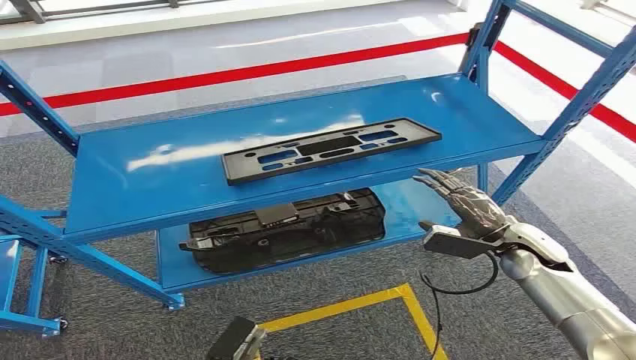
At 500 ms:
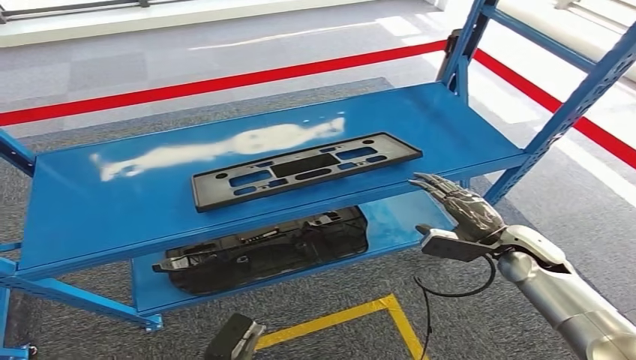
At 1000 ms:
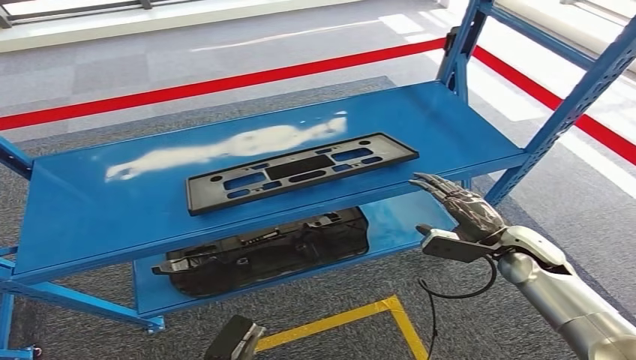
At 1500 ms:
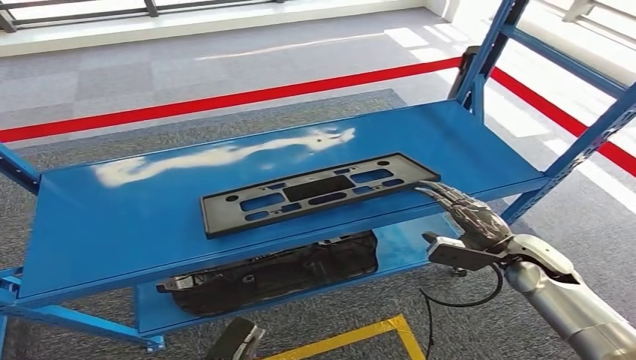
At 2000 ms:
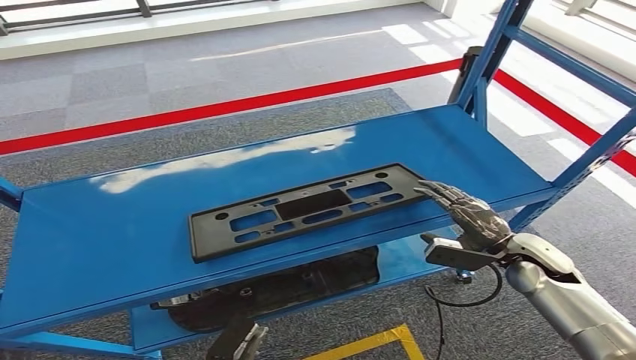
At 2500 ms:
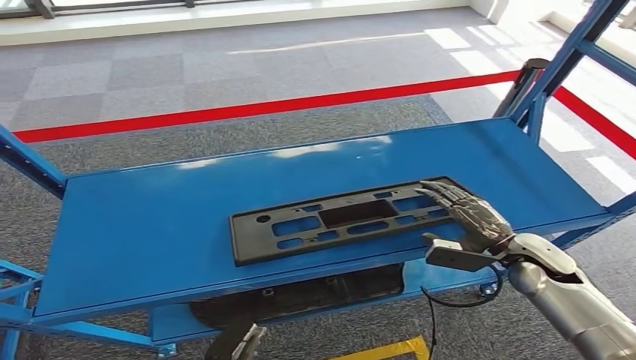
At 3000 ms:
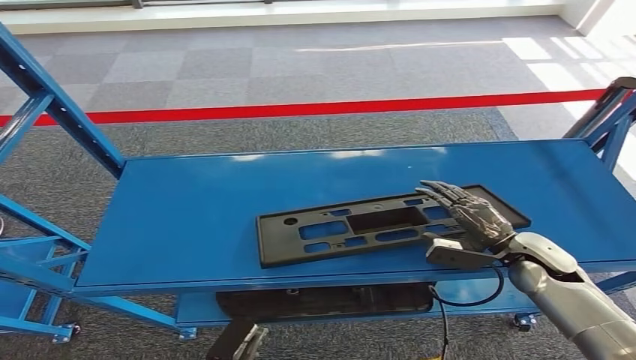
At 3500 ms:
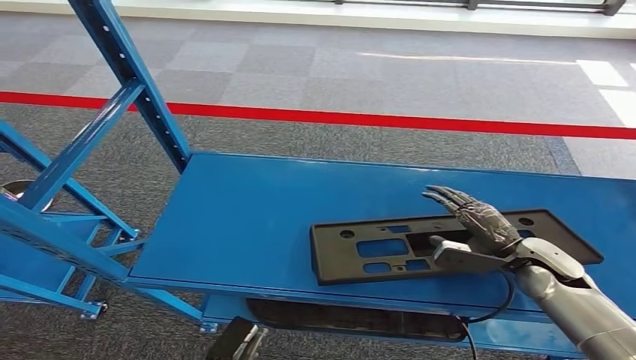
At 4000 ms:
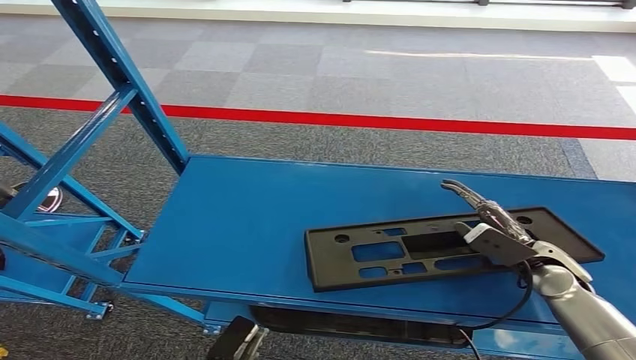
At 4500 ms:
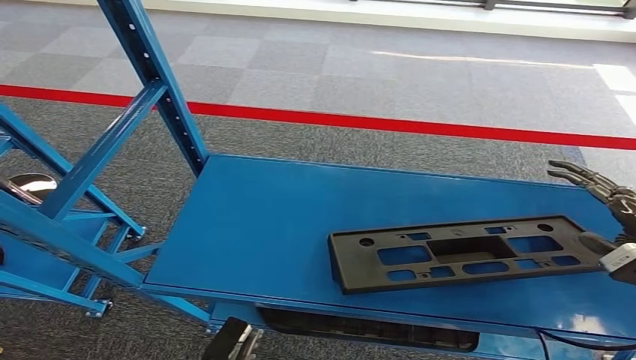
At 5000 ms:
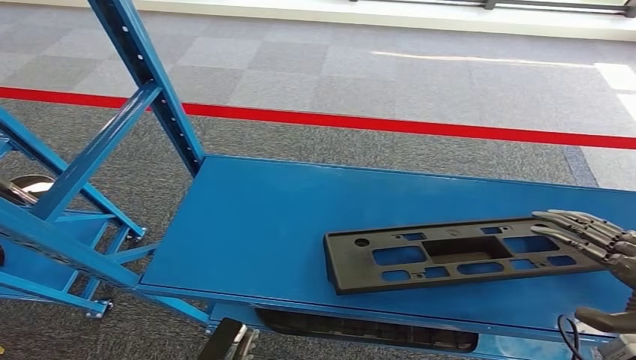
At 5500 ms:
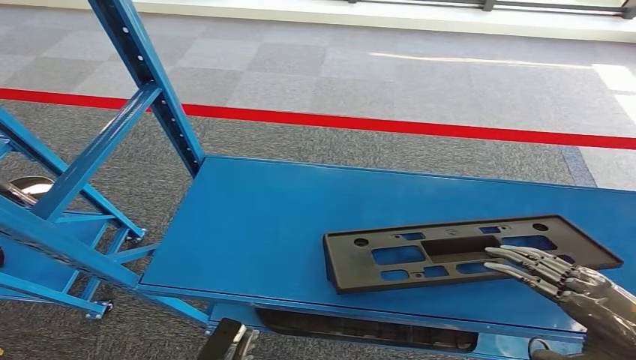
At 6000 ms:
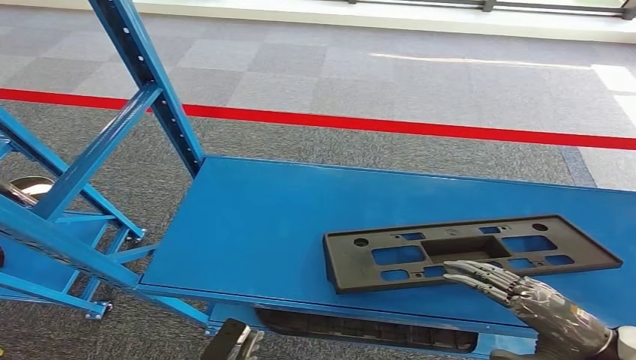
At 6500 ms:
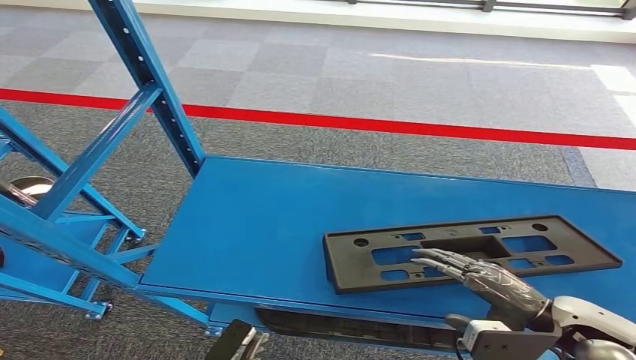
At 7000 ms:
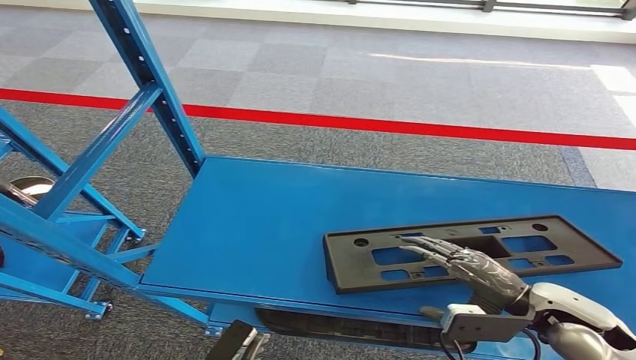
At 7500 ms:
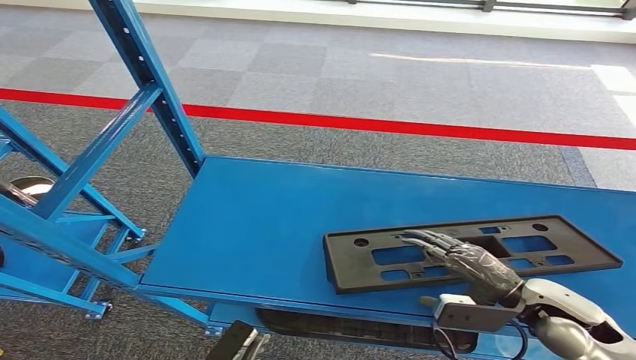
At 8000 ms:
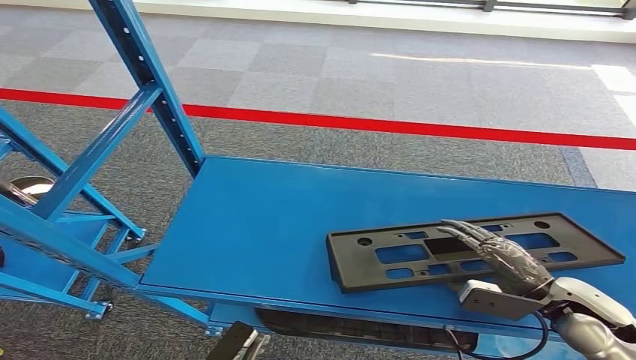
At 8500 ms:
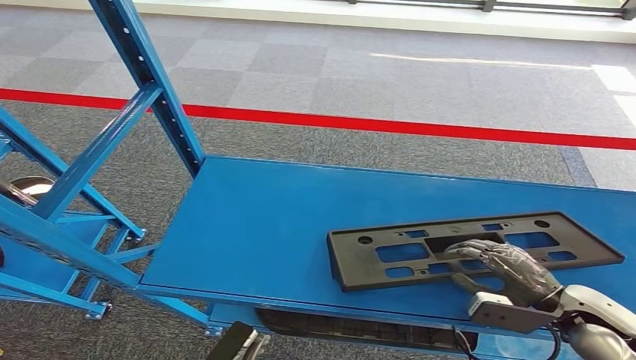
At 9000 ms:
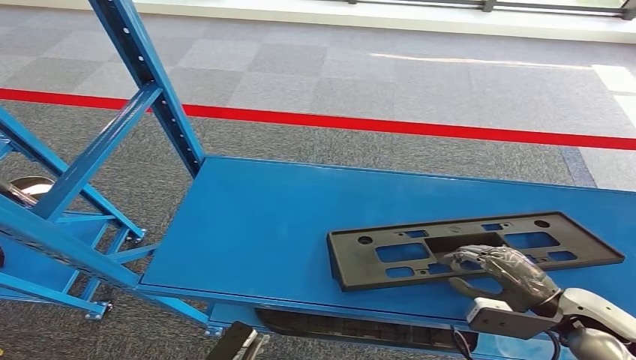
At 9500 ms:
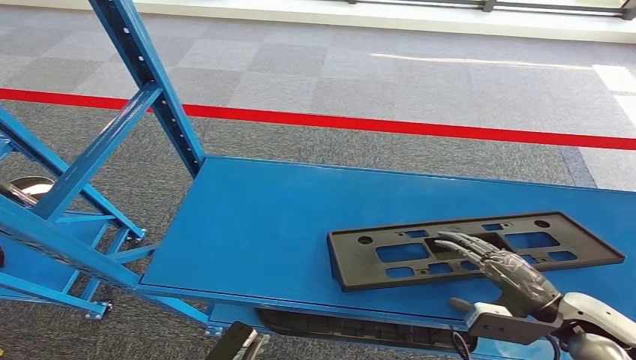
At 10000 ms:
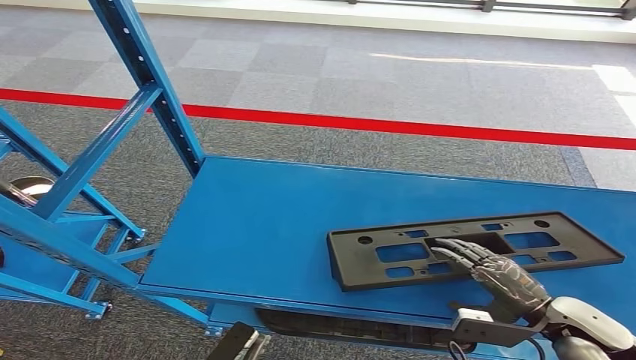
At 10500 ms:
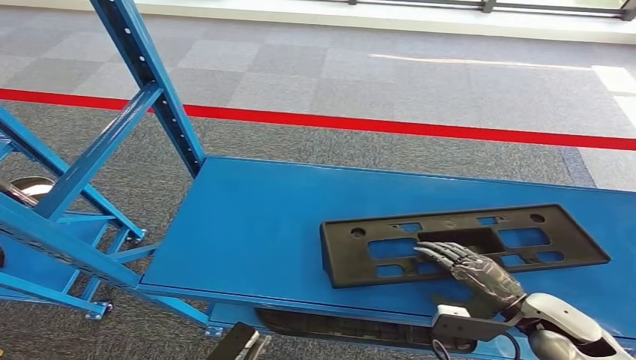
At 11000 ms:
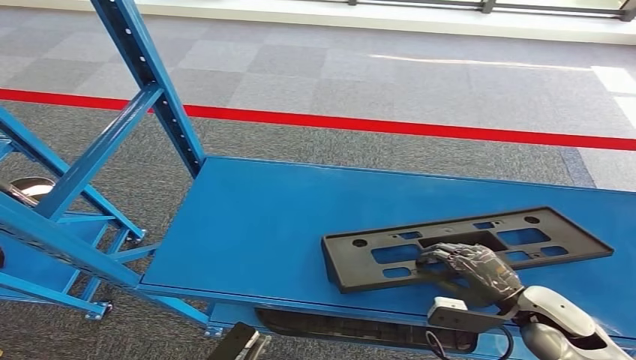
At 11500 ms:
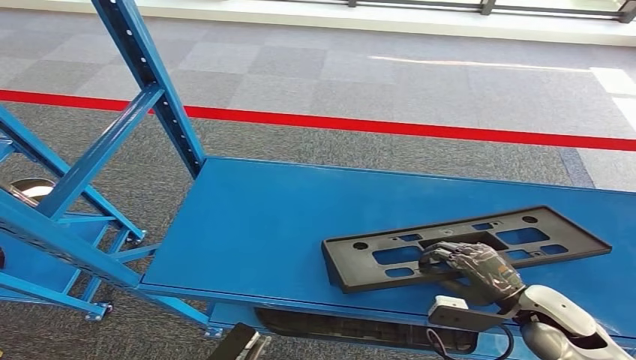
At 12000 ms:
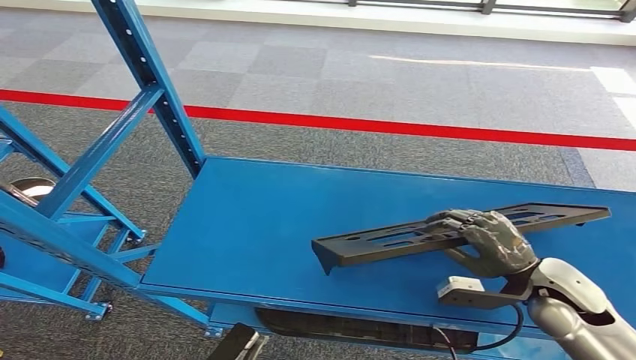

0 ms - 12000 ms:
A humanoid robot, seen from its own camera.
6000 ms - 8000 ms: The right hand moves forward and downward, some 15 cm.
8000 ms - 10000 ms: The hands stay close to where they were, moving slightly.
10000 ms - 12000 ms: The right hand shifts about 5 cm forward.

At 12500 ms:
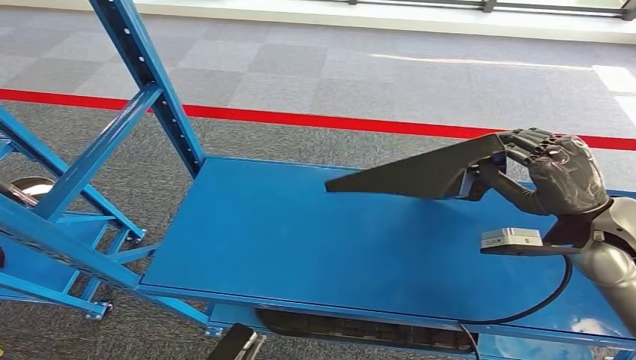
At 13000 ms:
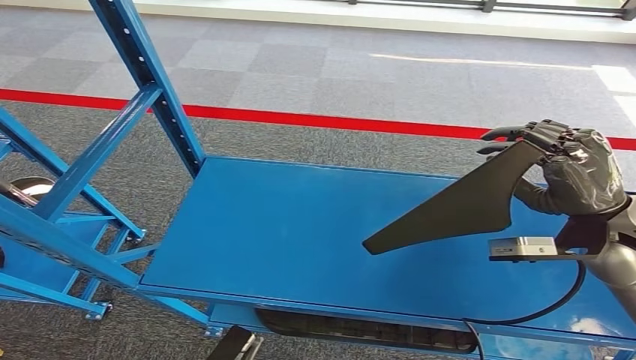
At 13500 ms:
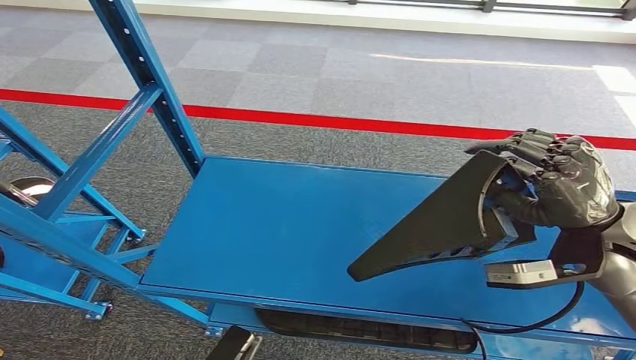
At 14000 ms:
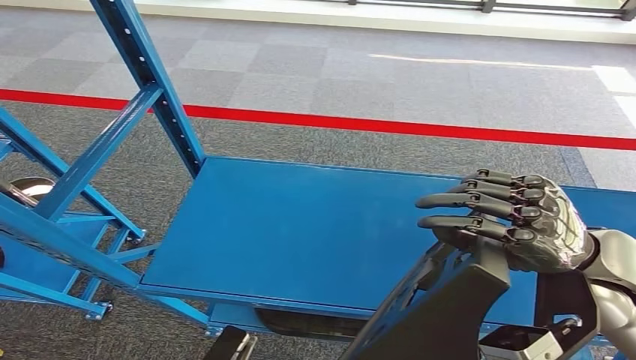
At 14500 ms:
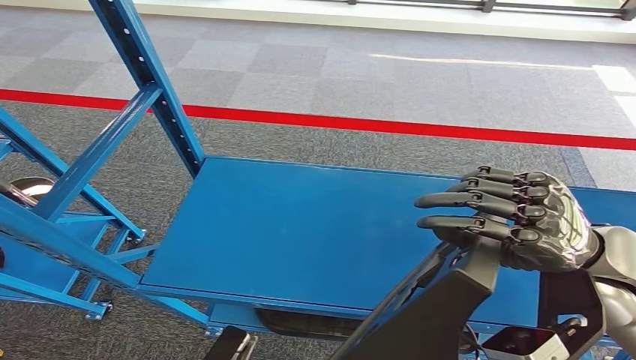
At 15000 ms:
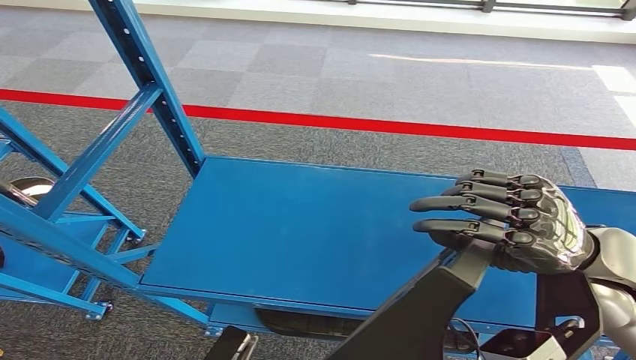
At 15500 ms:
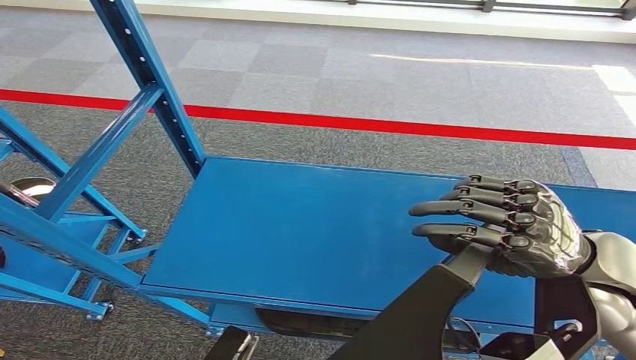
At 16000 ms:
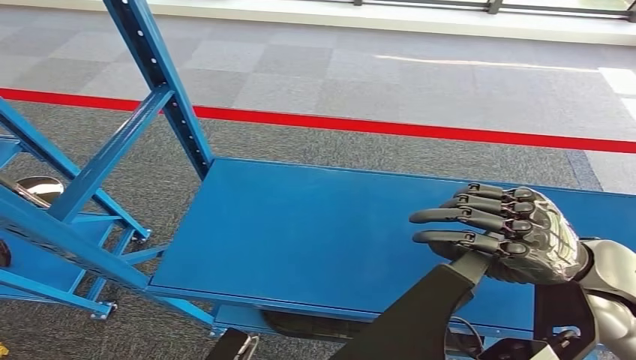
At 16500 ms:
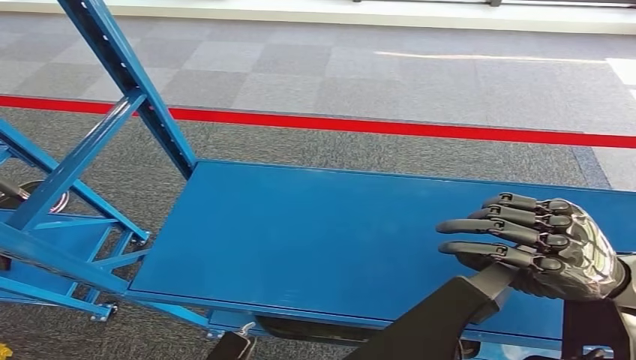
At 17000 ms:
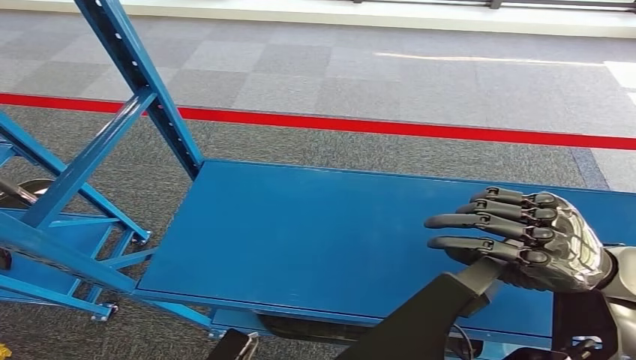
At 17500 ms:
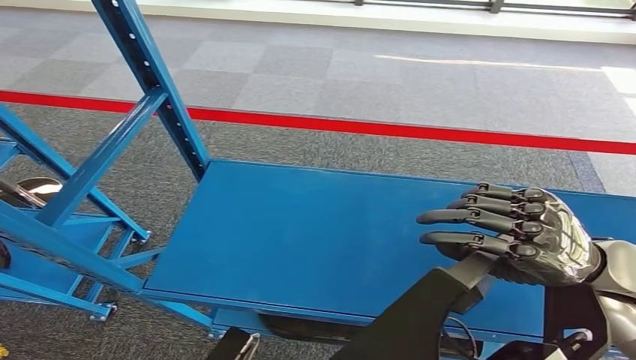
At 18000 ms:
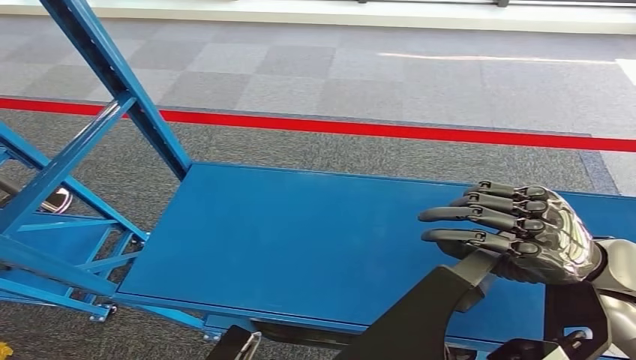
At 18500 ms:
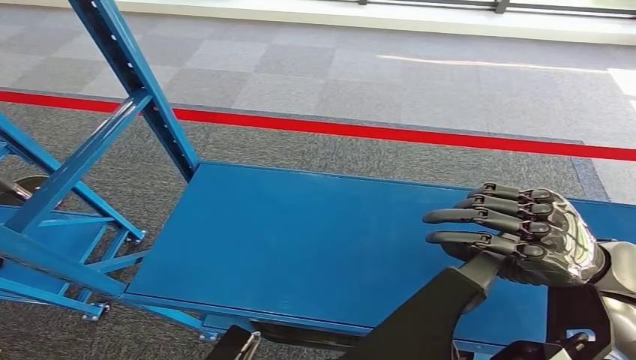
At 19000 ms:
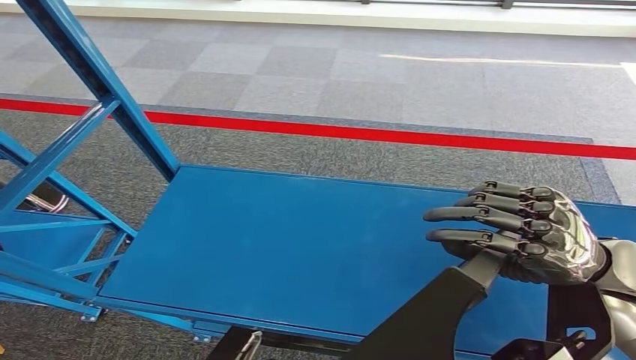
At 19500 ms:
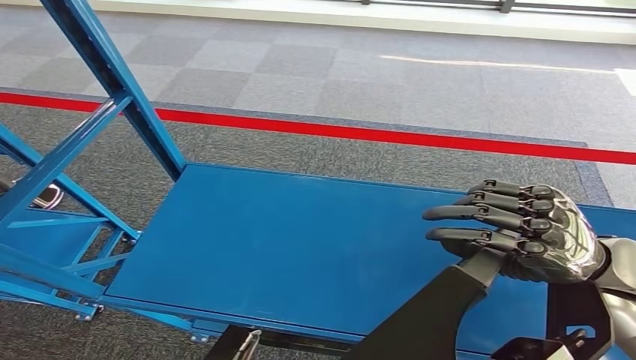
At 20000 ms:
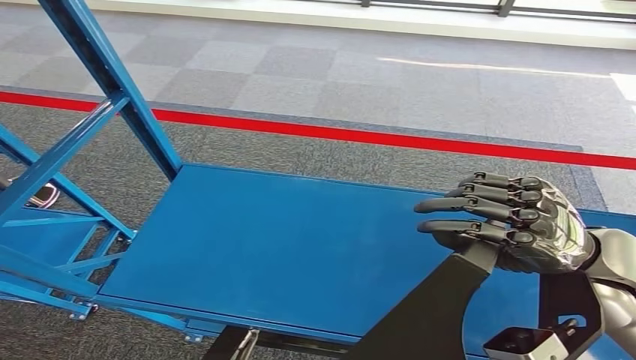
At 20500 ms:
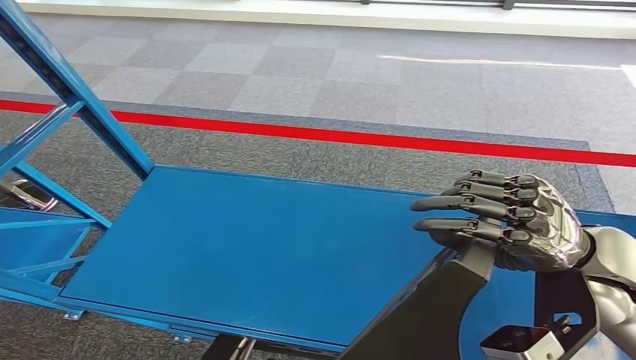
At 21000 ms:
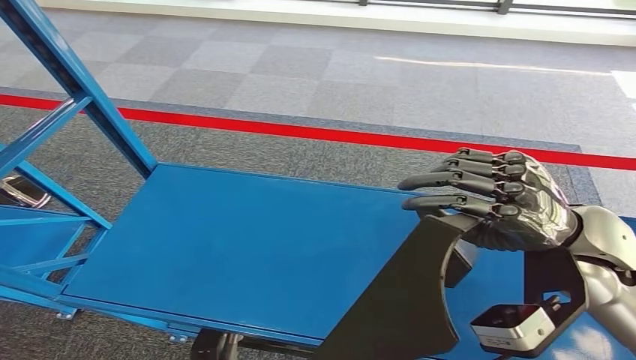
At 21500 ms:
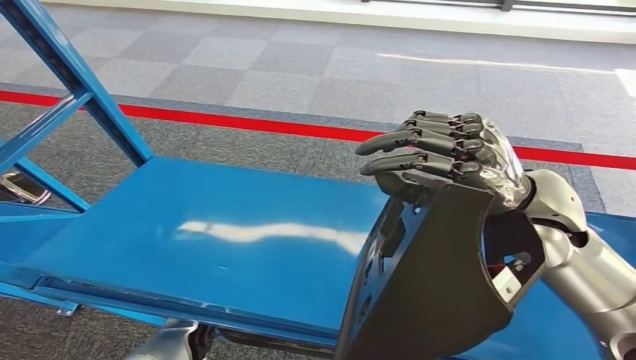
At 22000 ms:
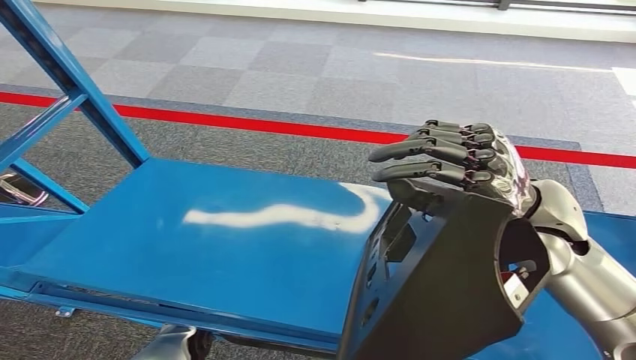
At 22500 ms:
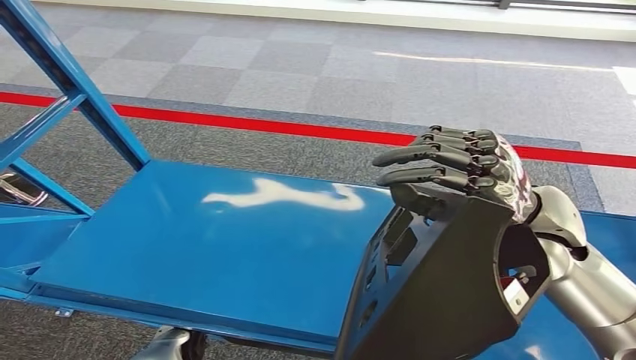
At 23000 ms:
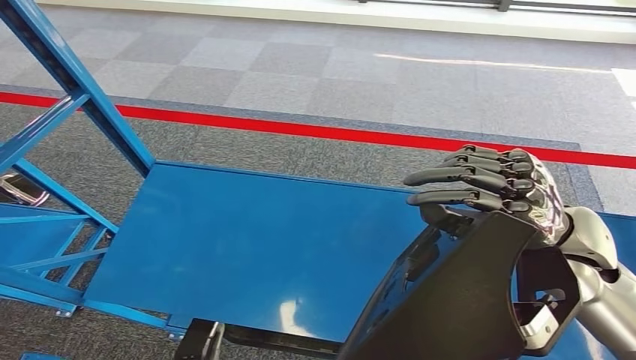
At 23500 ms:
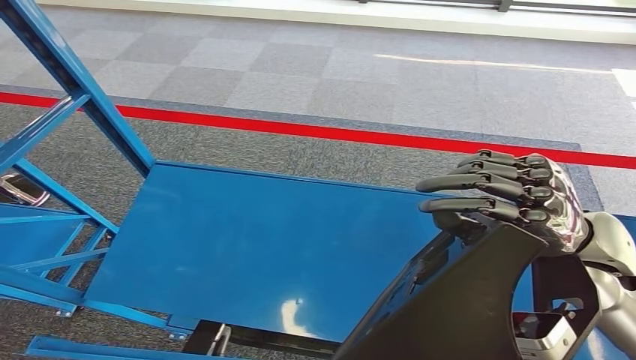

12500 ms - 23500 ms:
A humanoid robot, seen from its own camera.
12500 ms - 14500 ms: The right hand travels to the left and backward by some 10 cm.
14500 ms - 16000 ms: The hands move only a little.
